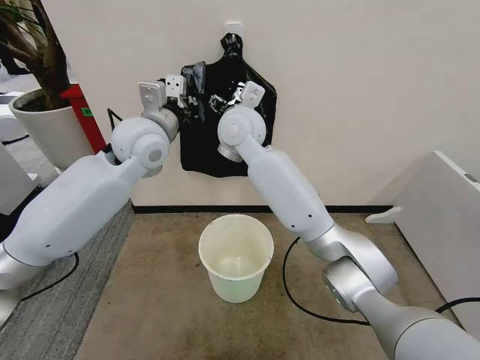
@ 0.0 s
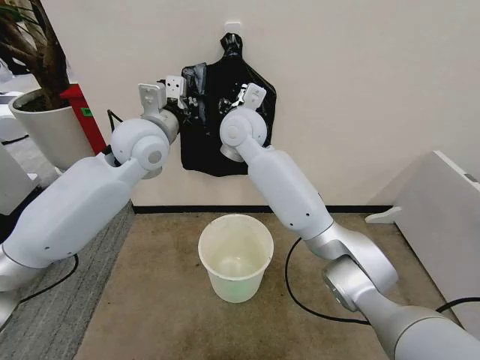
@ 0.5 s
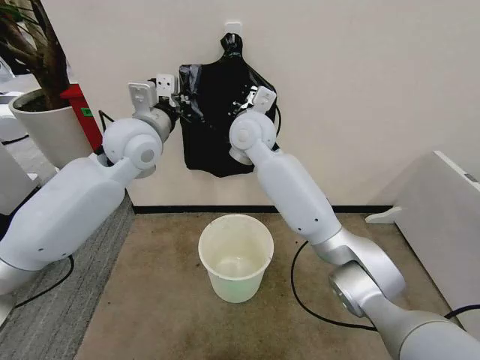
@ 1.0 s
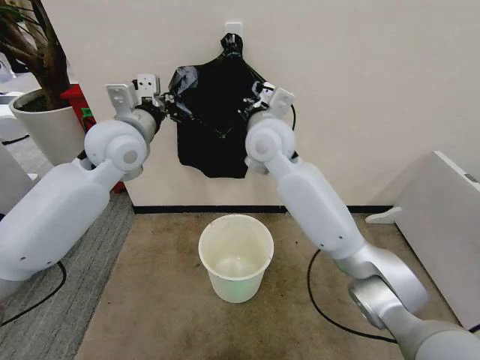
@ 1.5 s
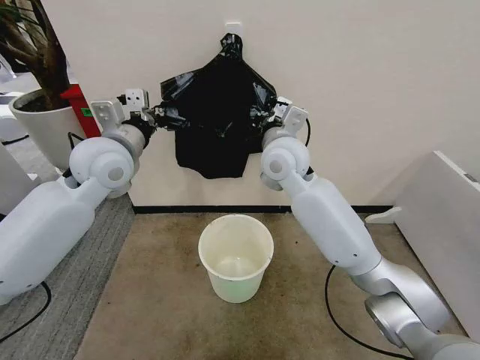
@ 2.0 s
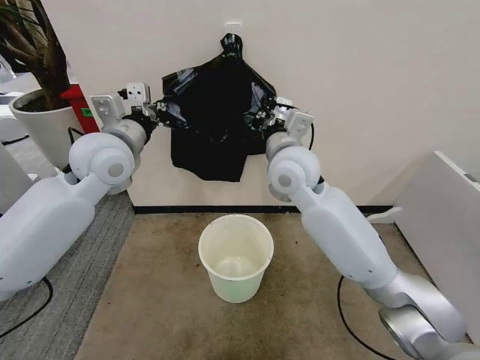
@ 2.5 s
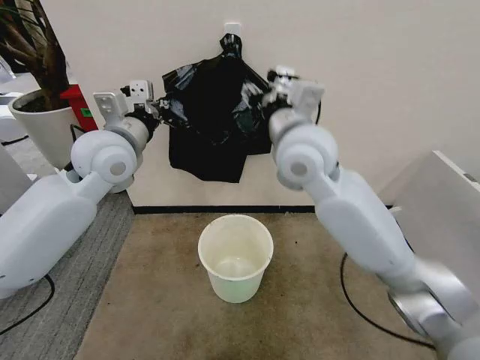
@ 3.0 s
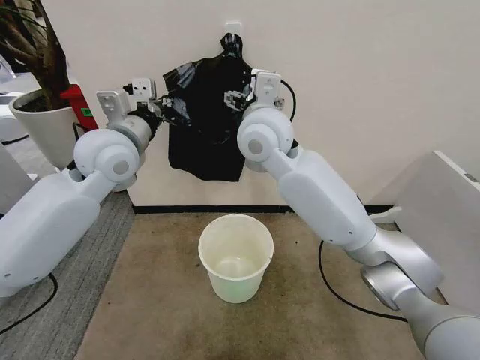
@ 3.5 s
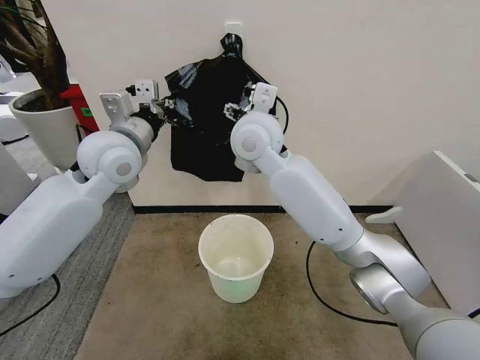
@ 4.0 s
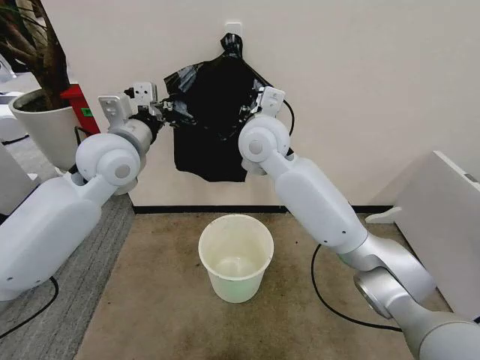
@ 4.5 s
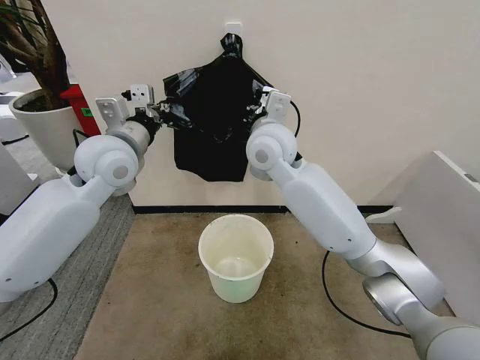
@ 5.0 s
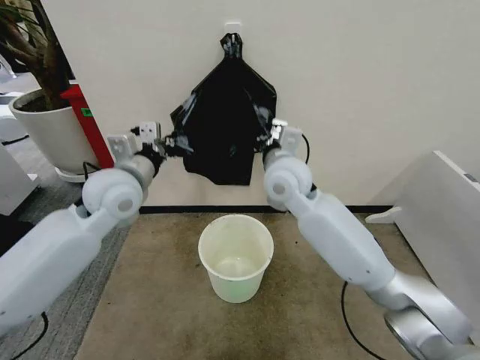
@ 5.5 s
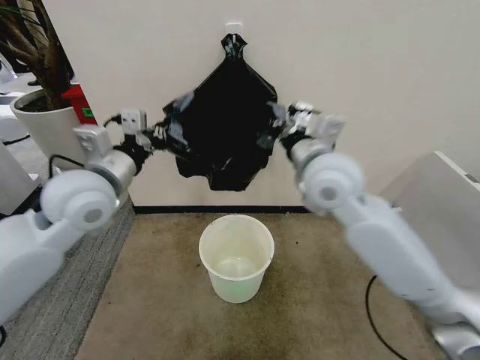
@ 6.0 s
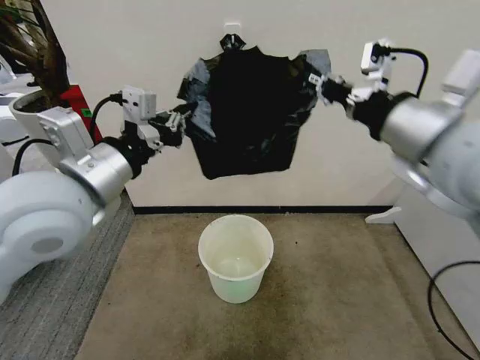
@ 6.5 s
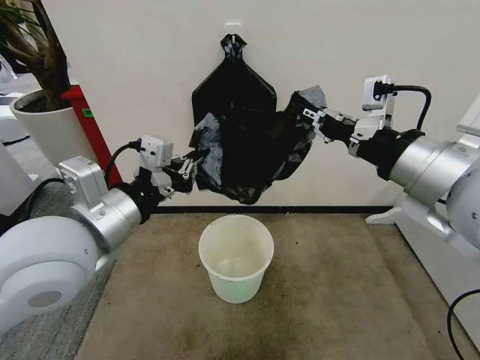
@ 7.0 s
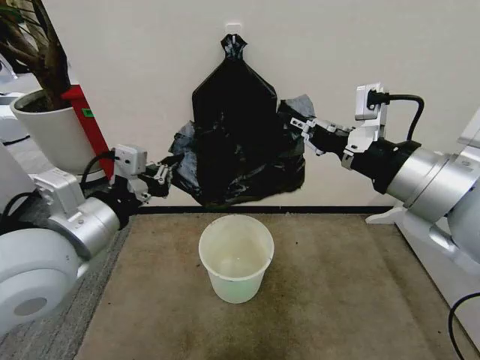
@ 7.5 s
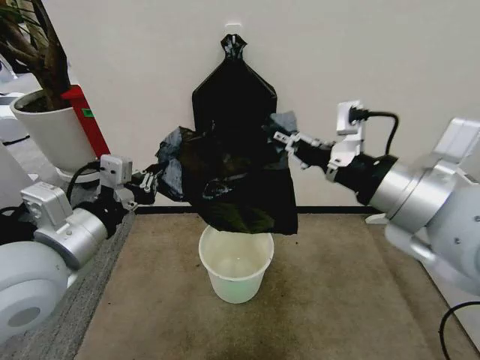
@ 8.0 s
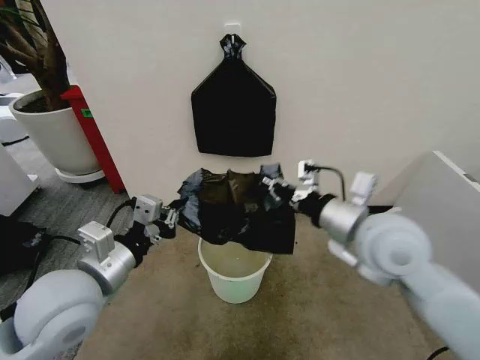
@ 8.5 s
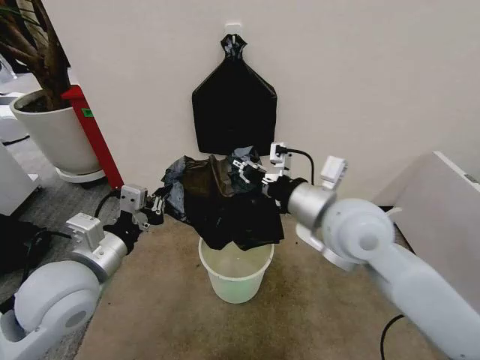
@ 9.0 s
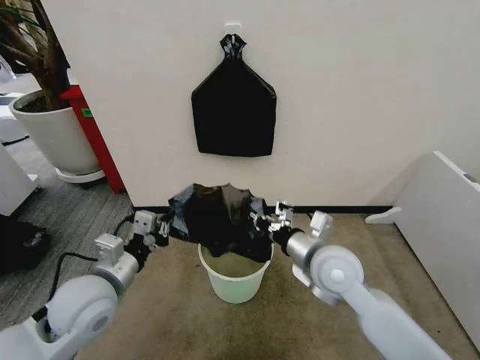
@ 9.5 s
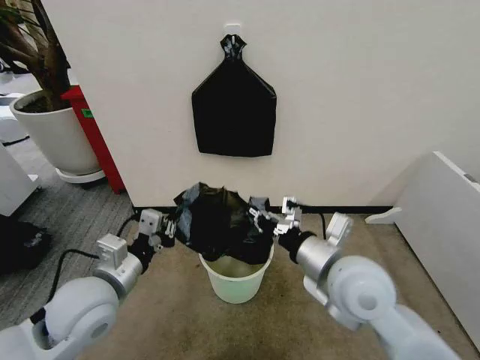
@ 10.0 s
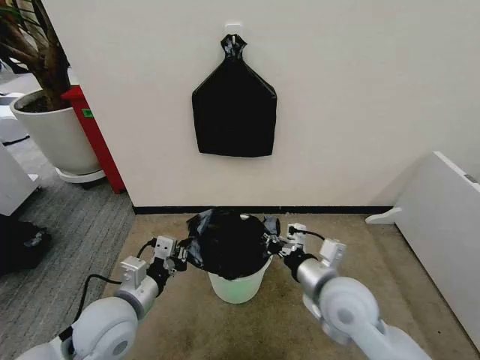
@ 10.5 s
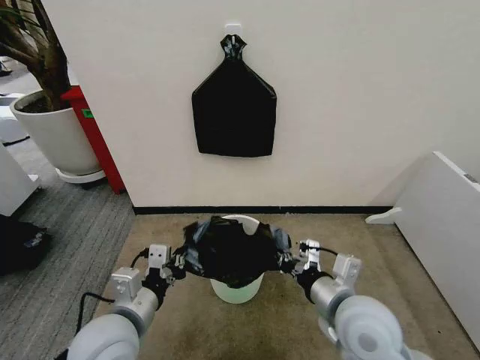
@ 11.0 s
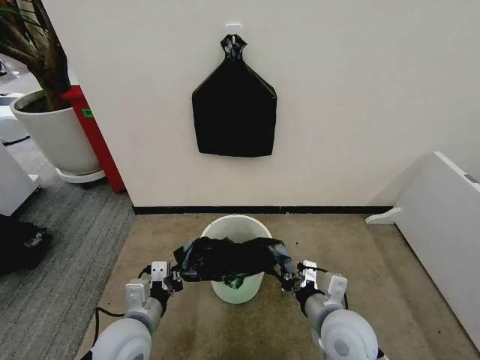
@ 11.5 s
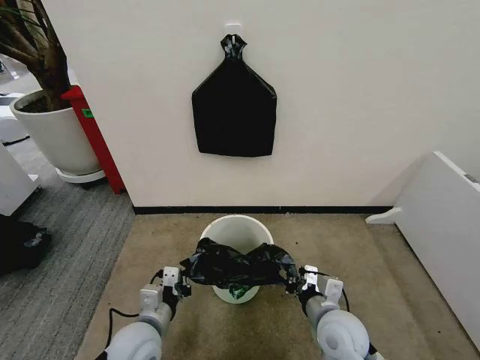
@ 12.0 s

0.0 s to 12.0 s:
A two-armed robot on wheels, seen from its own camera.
Task of the whole recording: Place the garbage bag over the trash bin.
0.0 to 2.0 s: The right gripper goes roughly 10 cm to the right, and closes up; the left gripper goes some 5 cm to the left.
2.0 to 4.0 s: The right gripper is displaced to the left and upward by approximately 10 cm, and opens up.
4.0 to 6.0 s: The right gripper goes approximately 15 cm to the right and backward, and closes up. Meanwhile the left gripper shifts approximately 5 cm backward.
6.0 to 8.0 s: The left gripper heads backward, covering some 15 cm. The right gripper travels backward, to the right and upward by approximately 20 cm.
8.0 to 10.0 s: Both grippers move downward, some 15 cm.
10.0 to 12.0 s: The two grippers go about 15 cm downward.

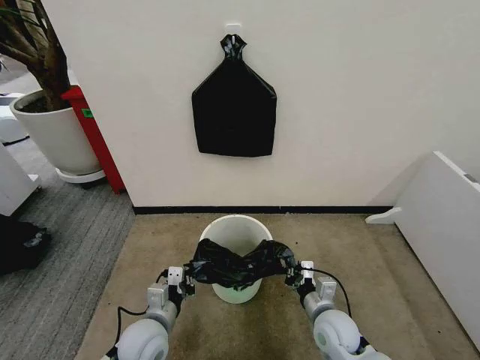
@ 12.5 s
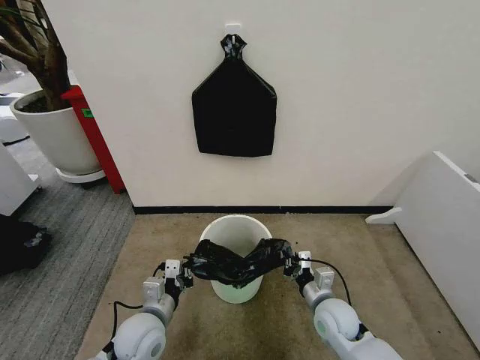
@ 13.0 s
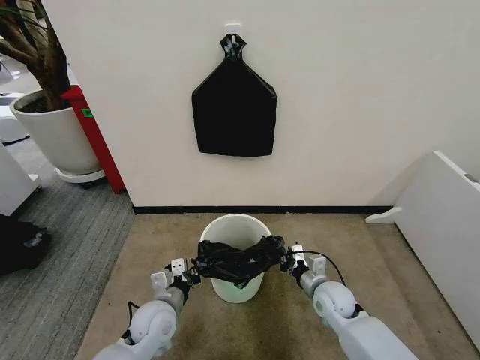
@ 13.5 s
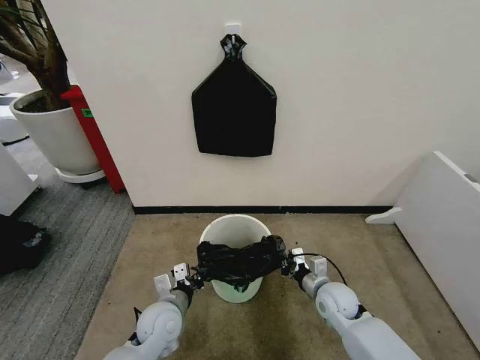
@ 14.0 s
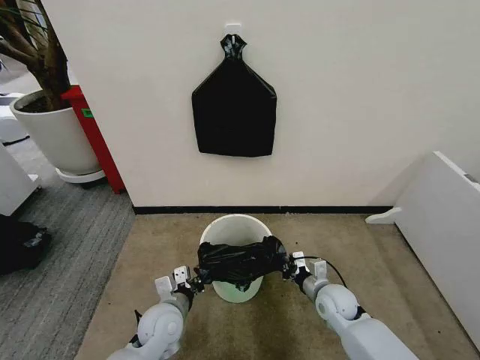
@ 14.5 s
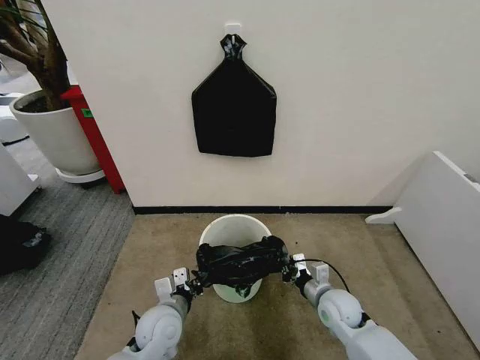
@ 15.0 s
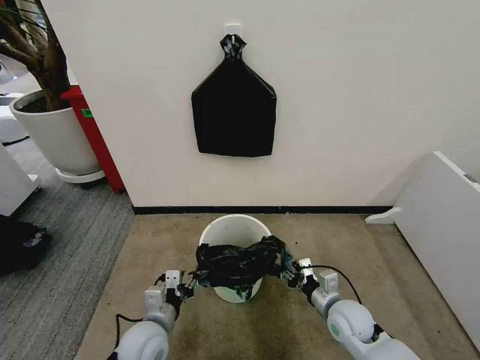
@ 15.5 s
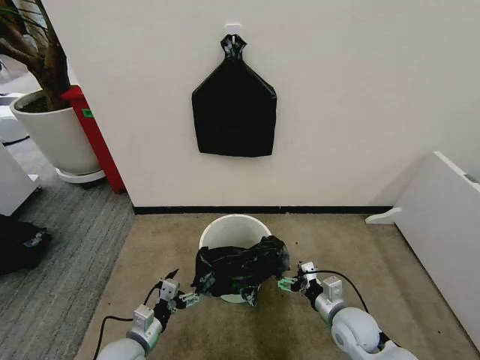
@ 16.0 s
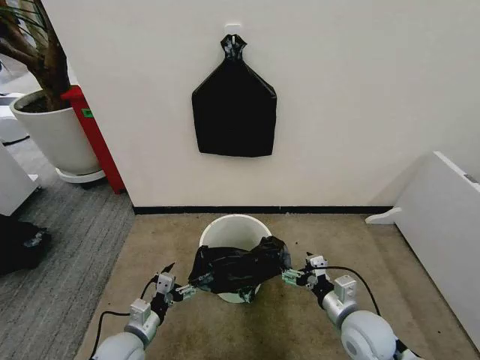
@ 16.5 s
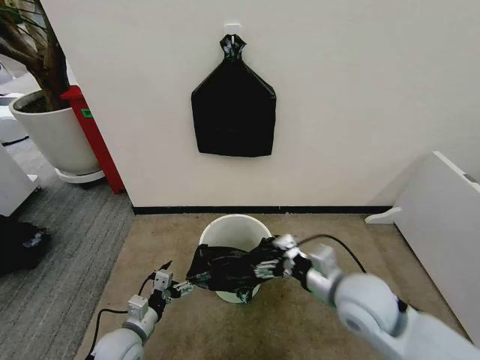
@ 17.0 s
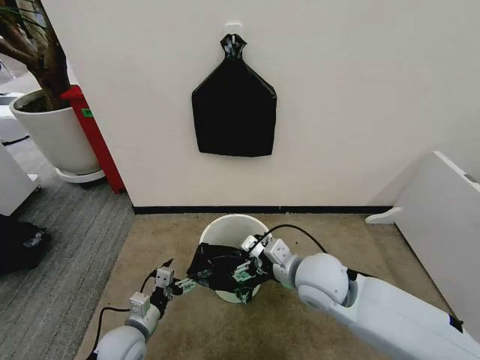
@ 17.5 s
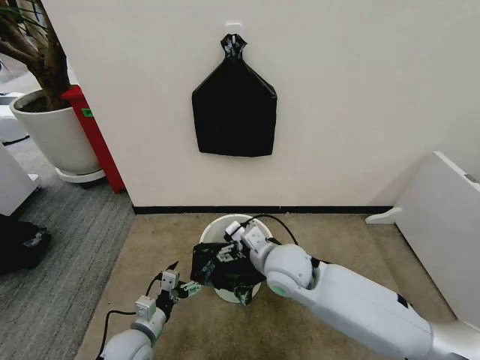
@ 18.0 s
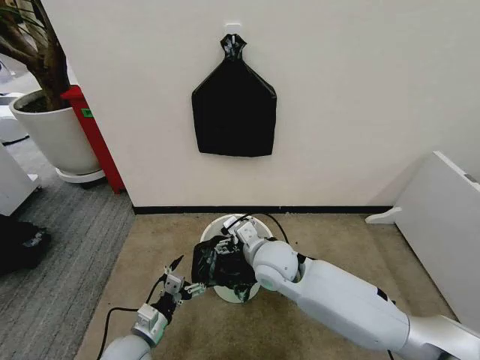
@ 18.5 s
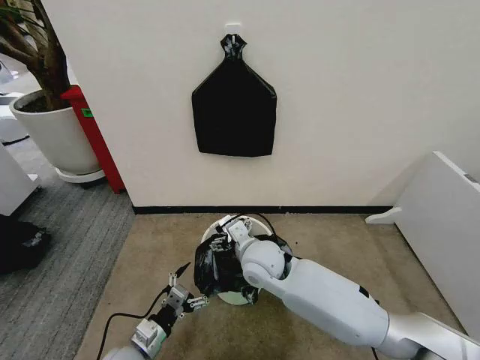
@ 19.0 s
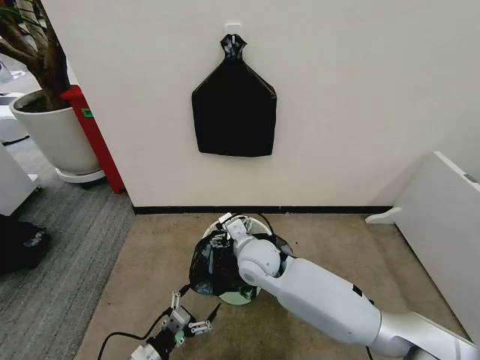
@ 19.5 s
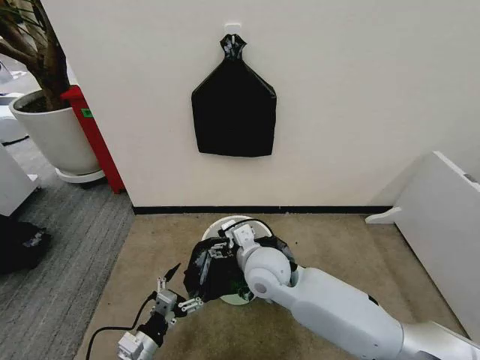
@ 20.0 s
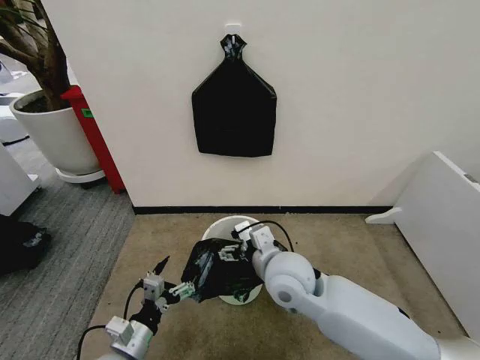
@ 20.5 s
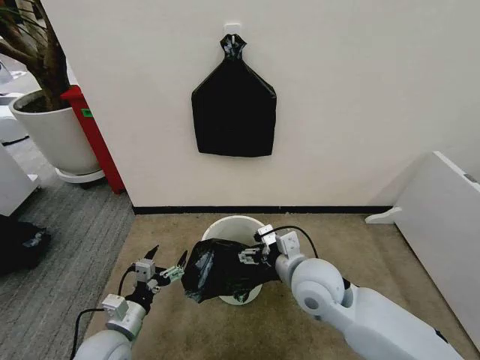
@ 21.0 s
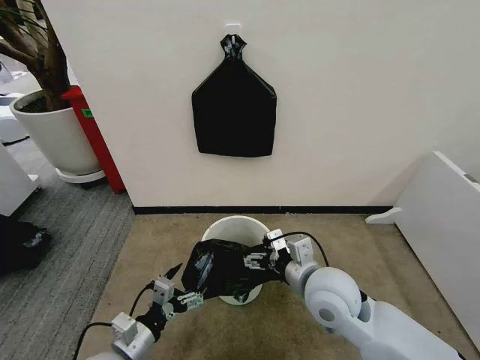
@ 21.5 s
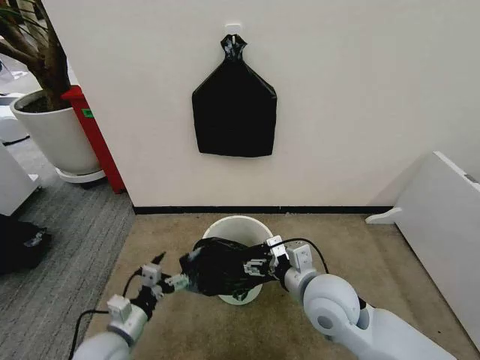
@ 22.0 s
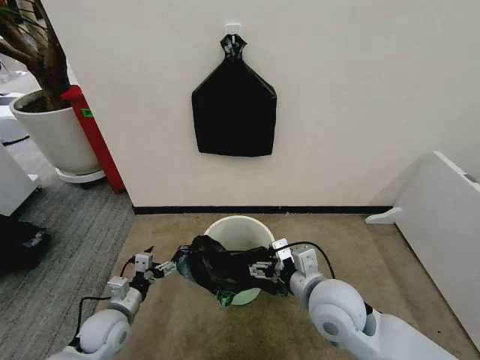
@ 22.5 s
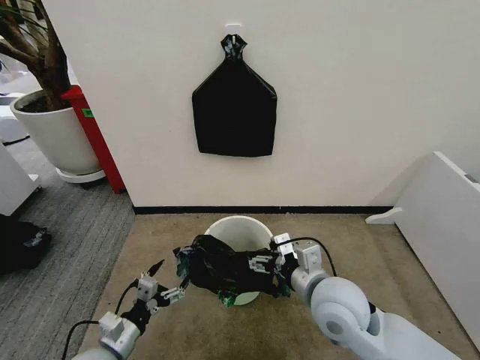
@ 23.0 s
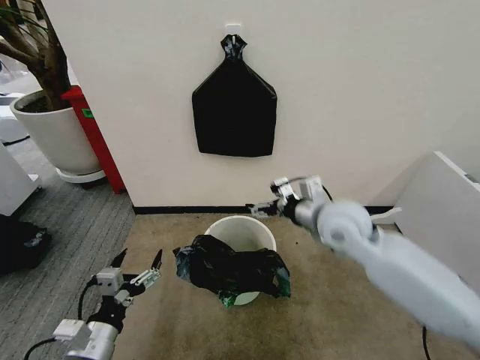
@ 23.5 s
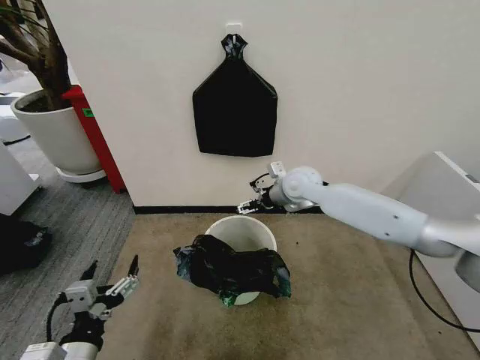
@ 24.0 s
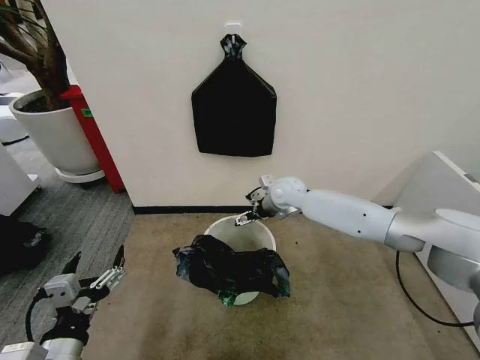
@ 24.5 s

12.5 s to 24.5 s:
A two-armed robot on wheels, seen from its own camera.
Task of the whole recording: Place the garbage bag over the trash bin.
12.5 to 14.5 s: The right gripper shifts roughly 5 cm forward.
14.5 to 16.5 s: The left gripper travels to the left by some 10 cm, and opens up, while the right gripper goes approximately 10 cm backward and upward, and opens its fingers.
16.5 to 18.5 s: The right gripper shifts about 25 cm to the left, forward and upward.
18.5 to 20.5 s: The right gripper changes place by roughly 5 cm. Meanwhile the left gripper changes place by about 5 cm.
20.5 to 22.5 s: The left gripper moves forward and backward over about 10 cm, changing direction 2 times. The right gripper heads to the right and backward, covering approximately 10 cm.
22.5 to 24.5 s: The left gripper heads backward and upward, covering some 20 cm. Meanwhile the right gripper goes roughly 30 cm forward.

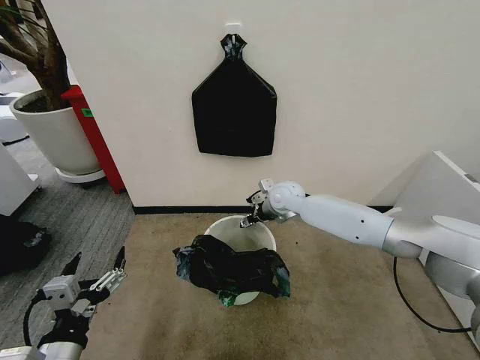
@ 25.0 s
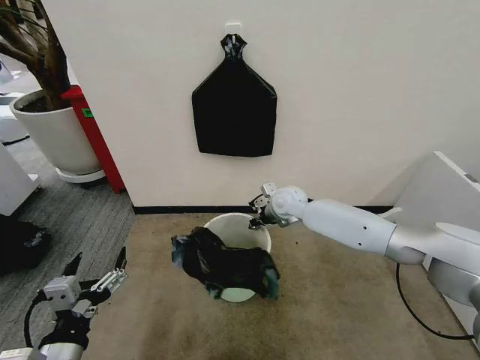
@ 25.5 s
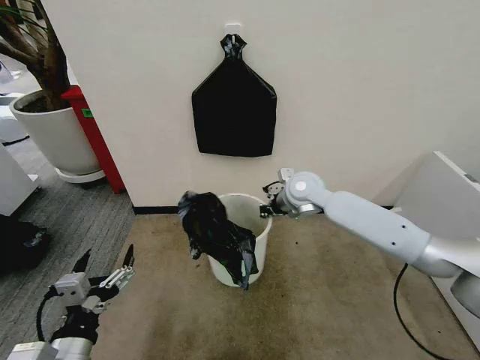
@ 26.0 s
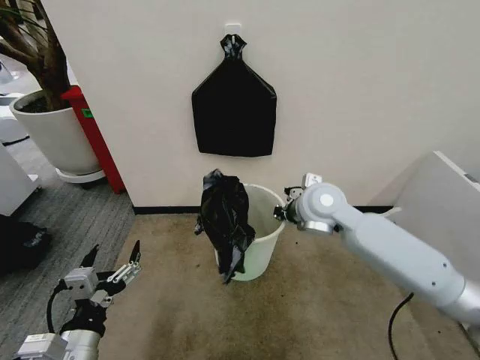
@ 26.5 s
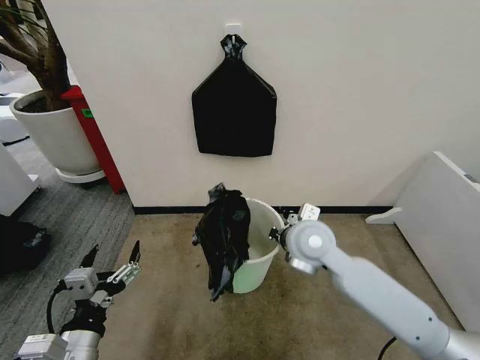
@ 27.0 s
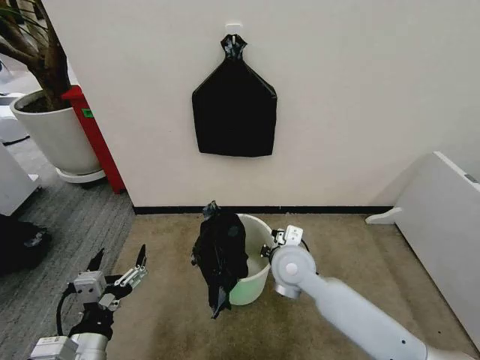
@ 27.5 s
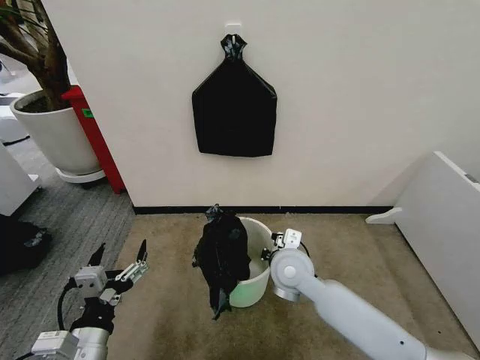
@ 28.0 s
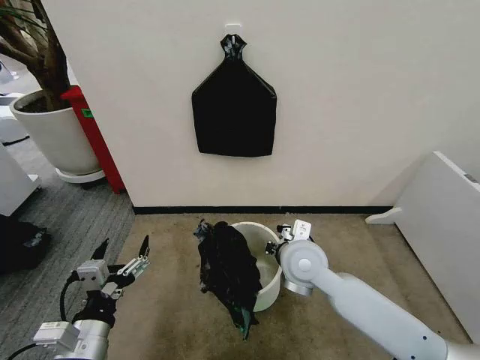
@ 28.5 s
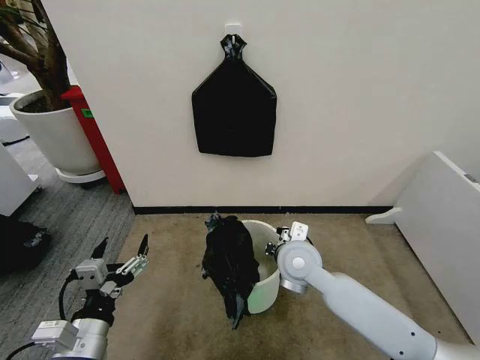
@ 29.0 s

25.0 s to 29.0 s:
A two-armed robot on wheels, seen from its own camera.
Task of the whole recording: Place the garbage bag over the trash bin.
25.0 to 27.0 s: The right gripper shifts roughly 20 cm backward, and closes.
27.0 to 29.0 s: The right gripper heads downward, covering roughly 5 cm, and opens.